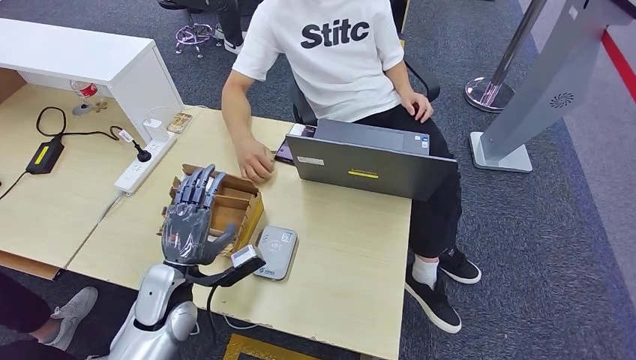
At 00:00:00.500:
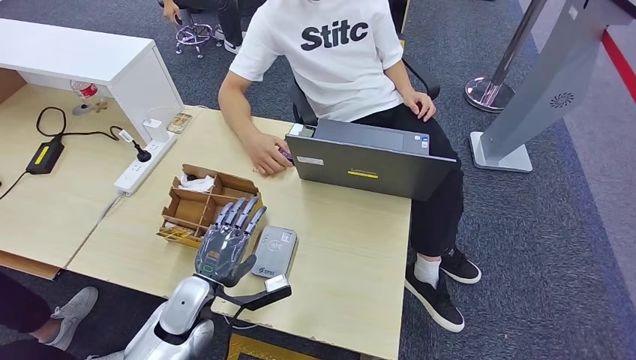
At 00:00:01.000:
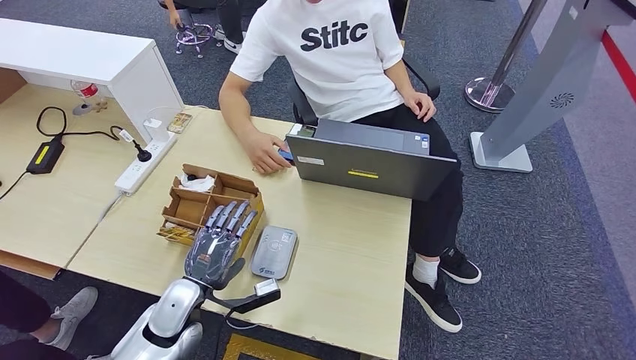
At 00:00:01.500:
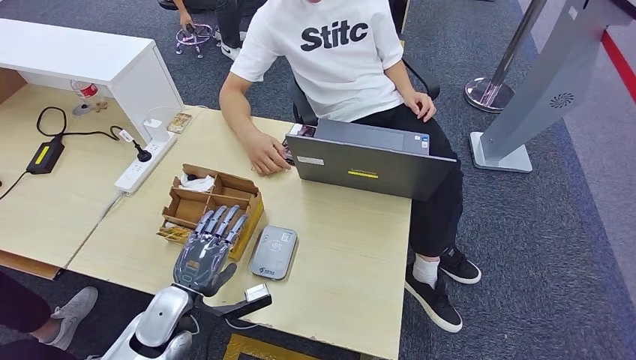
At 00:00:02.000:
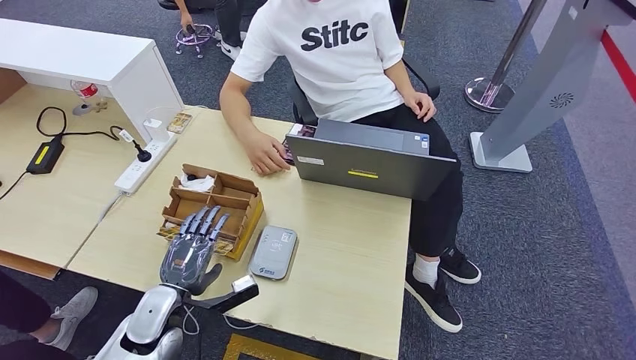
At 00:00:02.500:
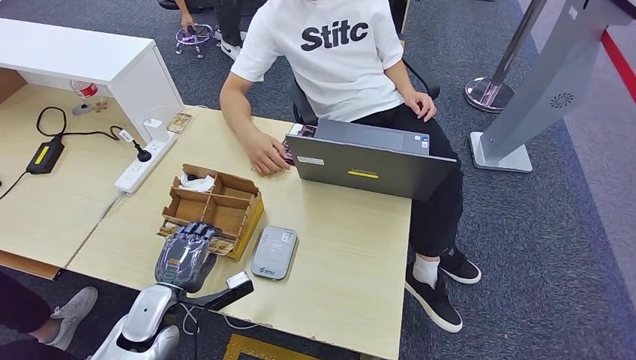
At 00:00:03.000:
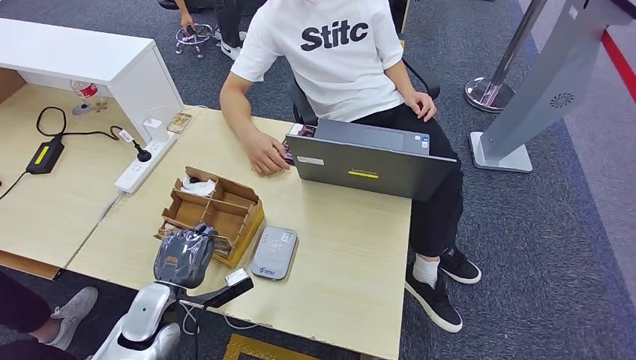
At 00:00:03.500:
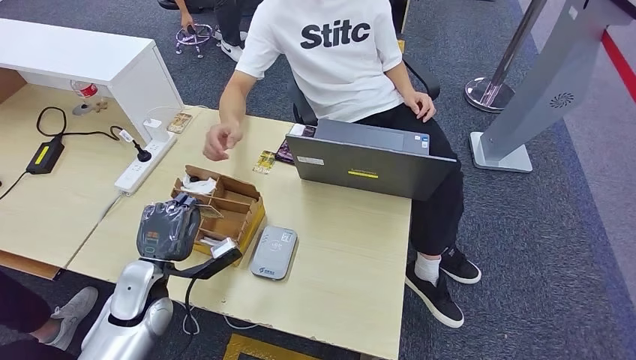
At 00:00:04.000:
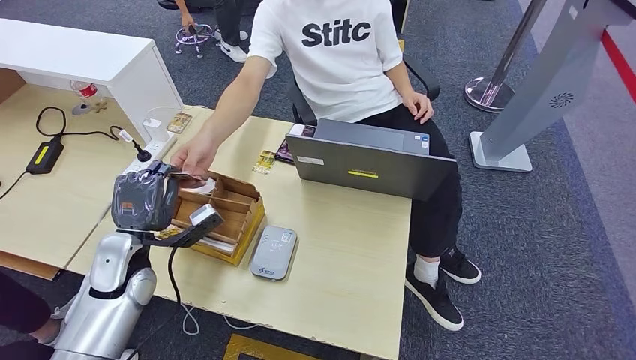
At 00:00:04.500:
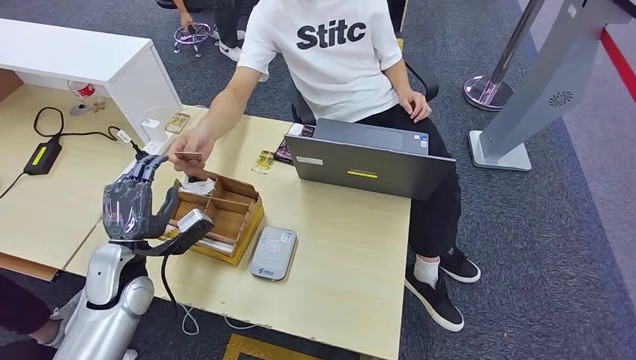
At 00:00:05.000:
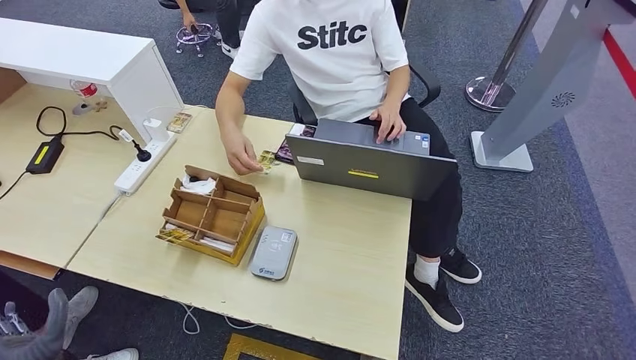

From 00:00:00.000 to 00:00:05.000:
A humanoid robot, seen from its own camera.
Step, from 00:00:02.500 to 00:00:03.500: Pick up the room key from the key card box.
Step, from 00:00:04.000 to 00:00:05.000: Hand the room key to the person.
From 00:00:00.000 to 00:00:02.500: The left hand changes place by some 5 cm.
From 00:00:02.500 to 00:00:05.000: The left hand moves backward and to the left, approximately 15 cm.
